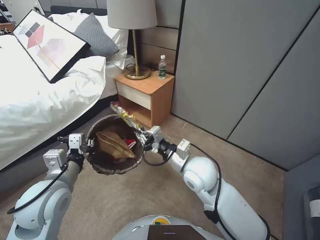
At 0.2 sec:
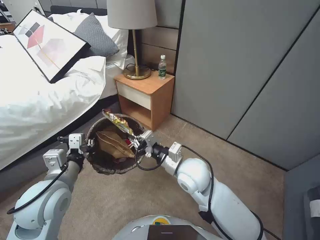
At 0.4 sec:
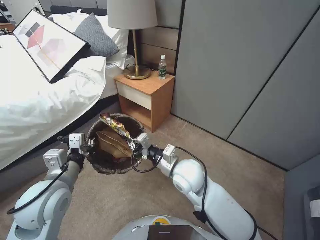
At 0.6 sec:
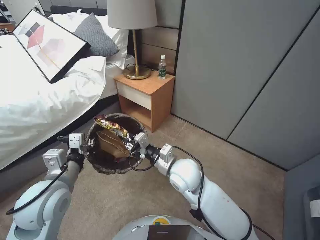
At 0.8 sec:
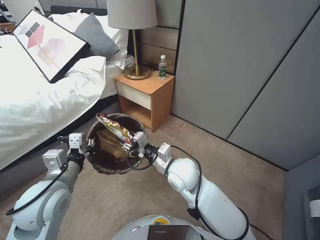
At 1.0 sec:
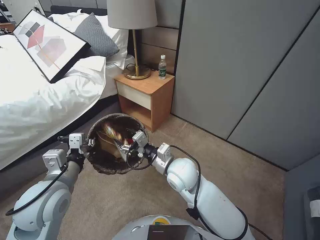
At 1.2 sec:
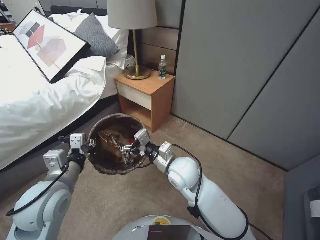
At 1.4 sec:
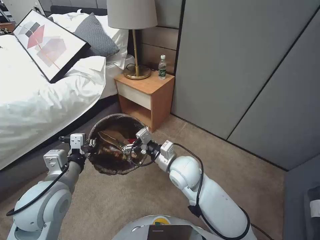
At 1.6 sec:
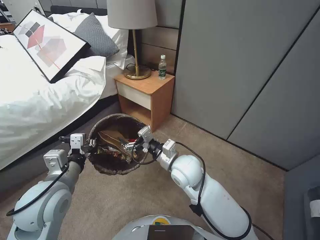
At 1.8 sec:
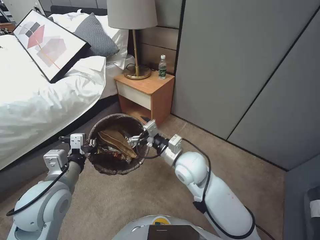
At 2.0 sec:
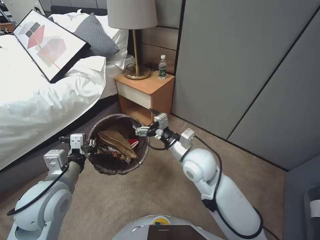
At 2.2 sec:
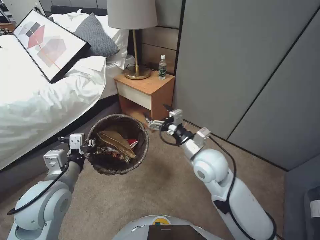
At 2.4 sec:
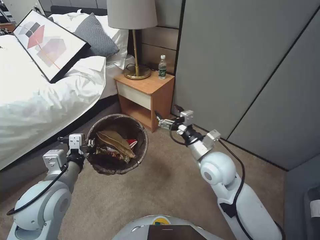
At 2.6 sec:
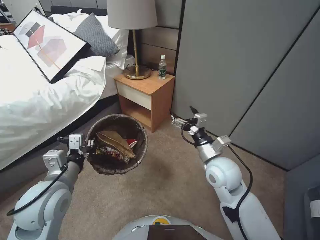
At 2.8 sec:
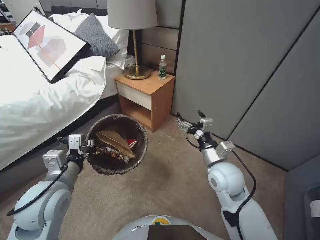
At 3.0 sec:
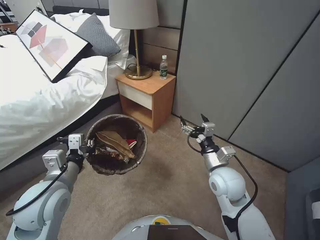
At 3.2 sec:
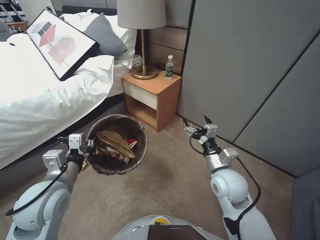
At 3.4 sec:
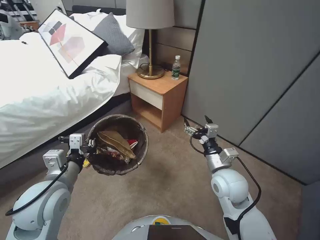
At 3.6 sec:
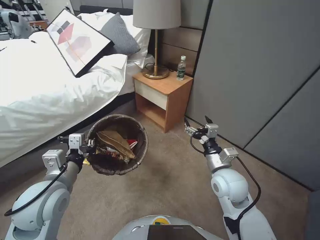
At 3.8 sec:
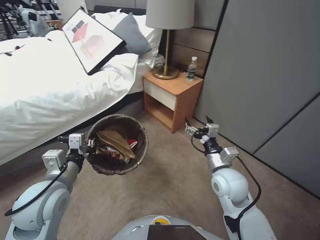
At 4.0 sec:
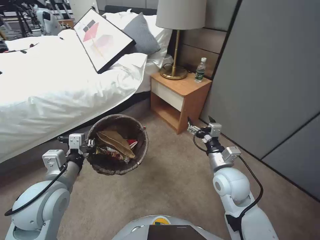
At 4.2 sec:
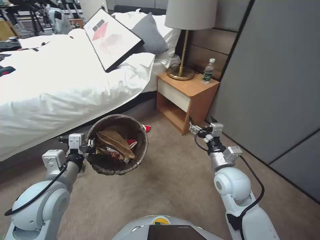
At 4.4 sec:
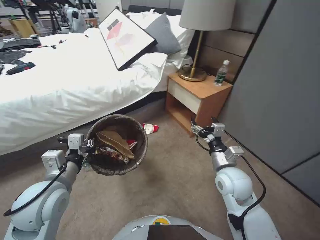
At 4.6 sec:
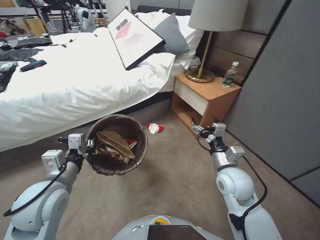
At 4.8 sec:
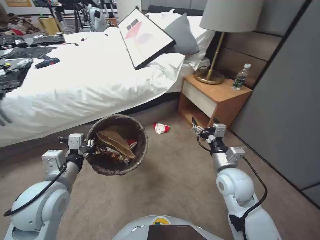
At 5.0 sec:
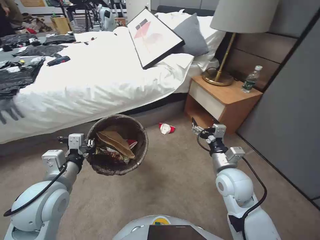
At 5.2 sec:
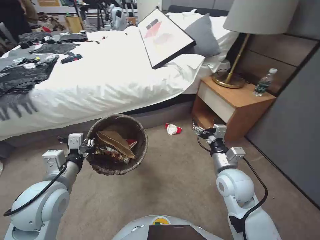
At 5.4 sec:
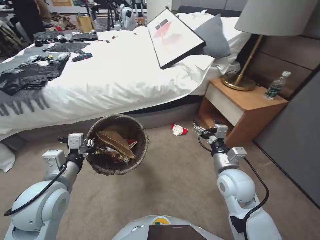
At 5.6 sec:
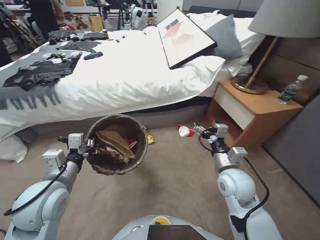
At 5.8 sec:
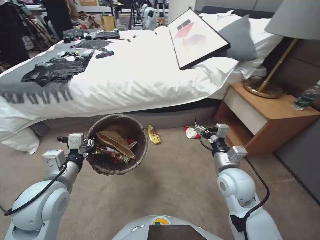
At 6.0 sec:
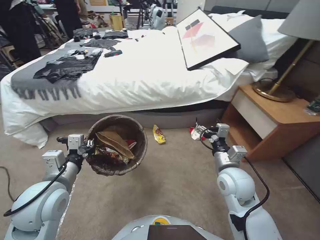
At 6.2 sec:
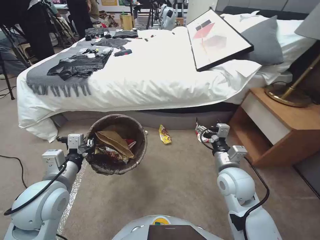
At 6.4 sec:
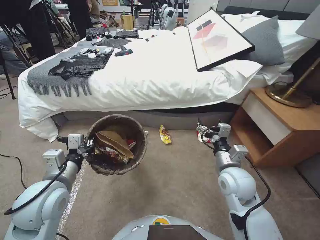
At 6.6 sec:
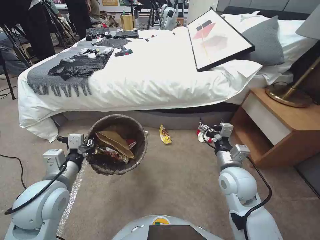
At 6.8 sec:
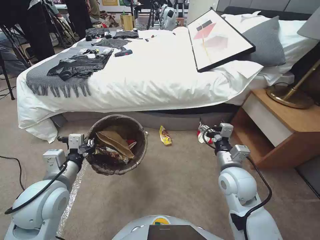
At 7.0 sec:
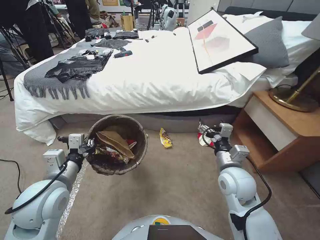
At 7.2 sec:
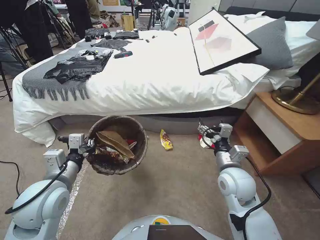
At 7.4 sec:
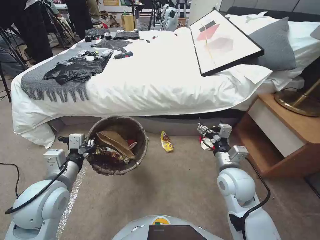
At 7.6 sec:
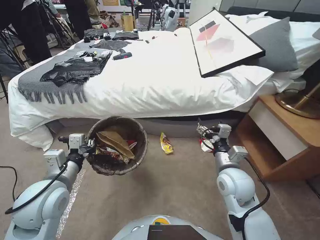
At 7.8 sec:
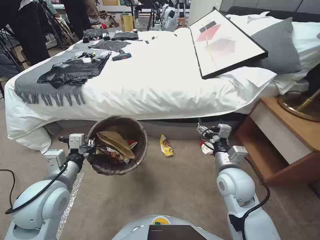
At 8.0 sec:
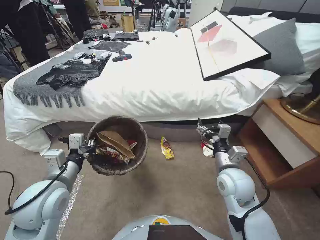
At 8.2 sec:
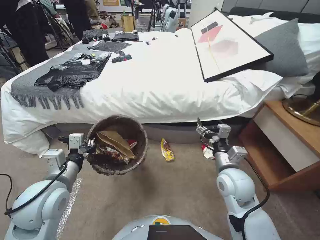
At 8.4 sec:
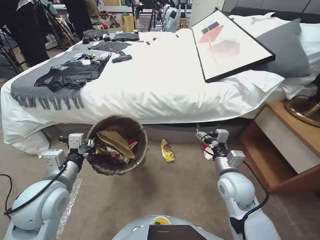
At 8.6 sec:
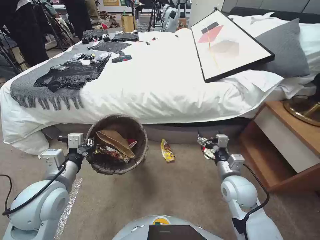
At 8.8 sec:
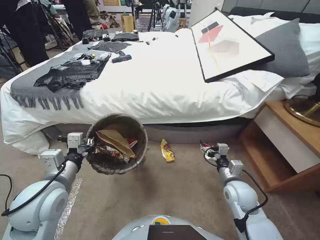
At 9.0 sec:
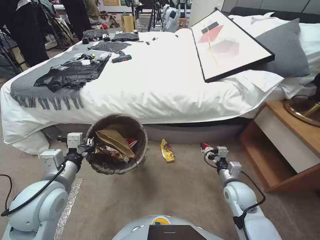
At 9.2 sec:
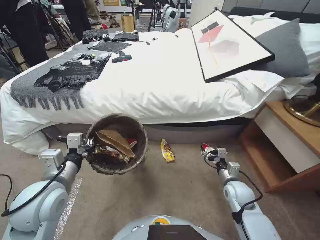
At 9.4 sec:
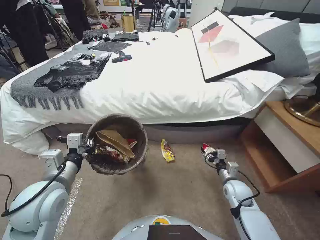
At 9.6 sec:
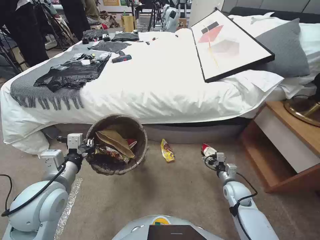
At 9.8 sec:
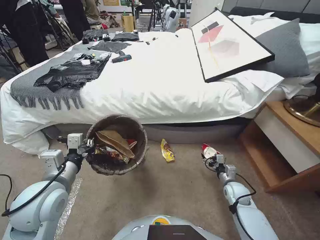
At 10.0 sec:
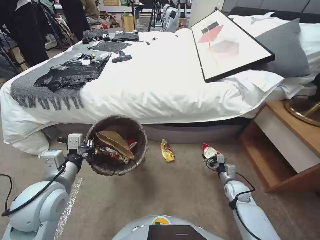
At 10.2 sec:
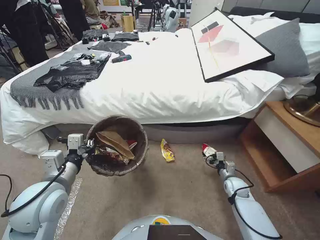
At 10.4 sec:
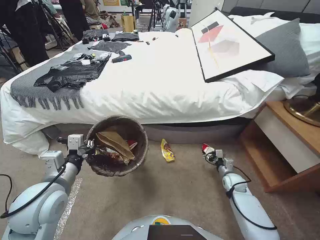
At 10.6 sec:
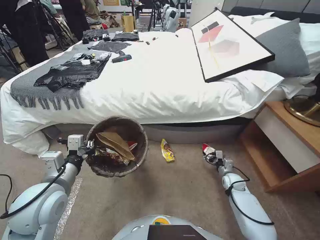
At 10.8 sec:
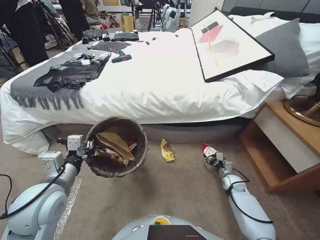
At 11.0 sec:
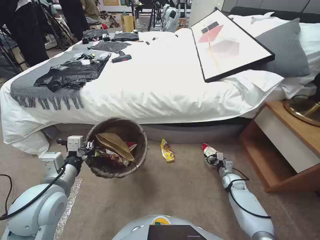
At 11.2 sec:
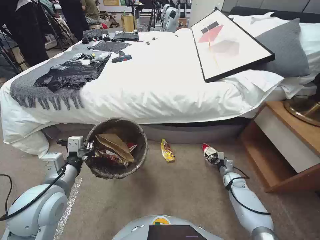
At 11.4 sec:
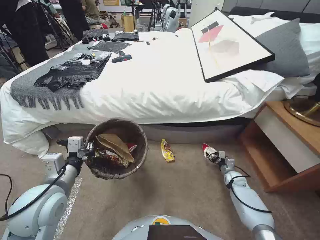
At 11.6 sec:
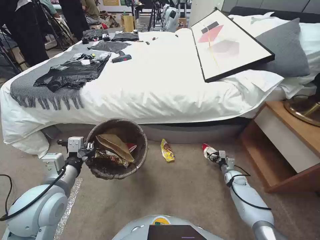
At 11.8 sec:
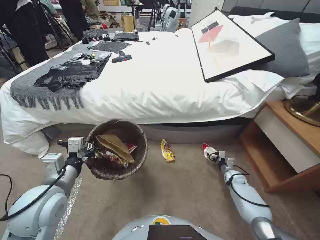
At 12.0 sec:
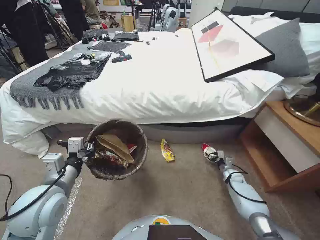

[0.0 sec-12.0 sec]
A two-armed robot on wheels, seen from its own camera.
Task of the whole recording: Pick up the trash bin, then pick up the garbage from the floor and place it into the trash bin.
0.0 sec to 1.6 sec: The right gripper opens.
1.6 sec to 3.0 sec: The right gripper heads to the right, covering some 15 cm.
7.6 sec to 9.0 sec: The right gripper moves downward and to the right, roughly 15 cm.
9.0 sec to 10.4 sec: The right gripper moves downward, to the right and forward, approximately 15 cm.
10.4 sec to 12.0 sec: The right gripper heads downward, covering about 5 cm.

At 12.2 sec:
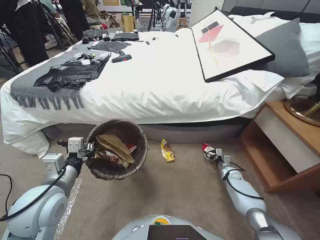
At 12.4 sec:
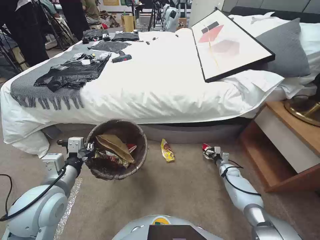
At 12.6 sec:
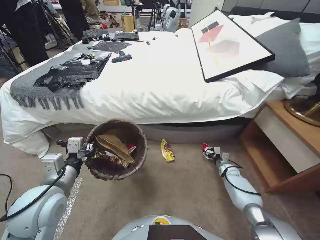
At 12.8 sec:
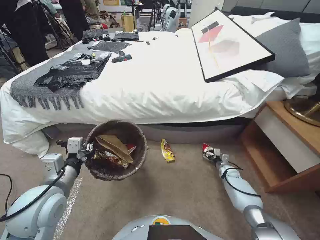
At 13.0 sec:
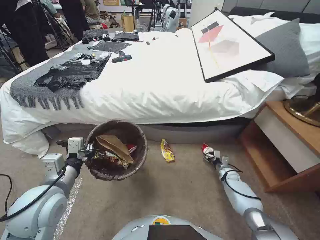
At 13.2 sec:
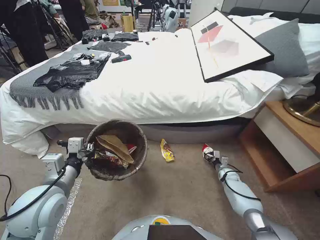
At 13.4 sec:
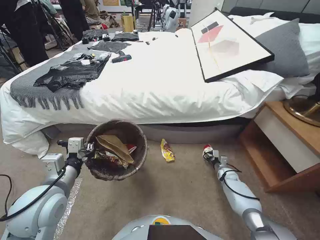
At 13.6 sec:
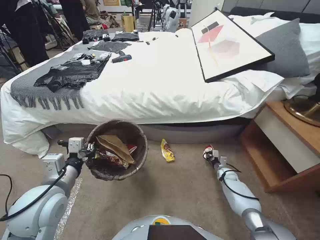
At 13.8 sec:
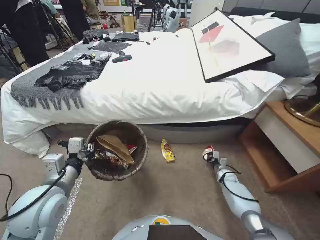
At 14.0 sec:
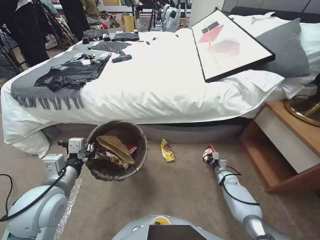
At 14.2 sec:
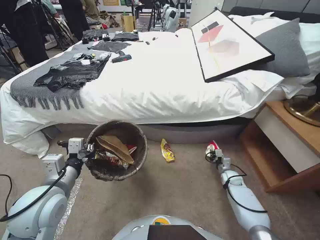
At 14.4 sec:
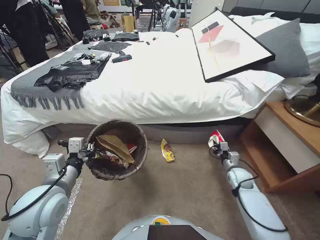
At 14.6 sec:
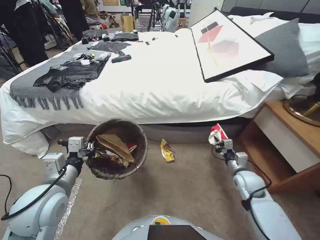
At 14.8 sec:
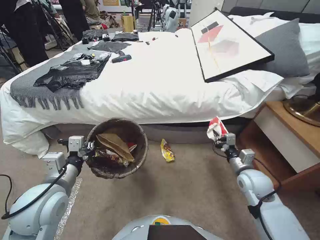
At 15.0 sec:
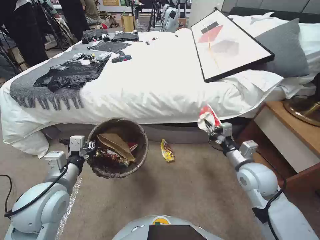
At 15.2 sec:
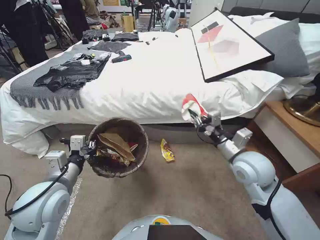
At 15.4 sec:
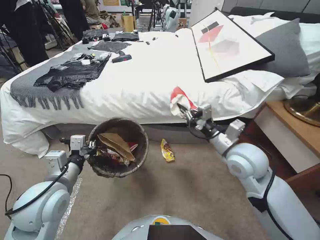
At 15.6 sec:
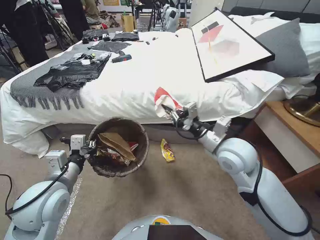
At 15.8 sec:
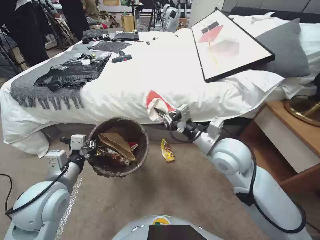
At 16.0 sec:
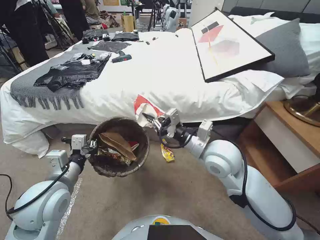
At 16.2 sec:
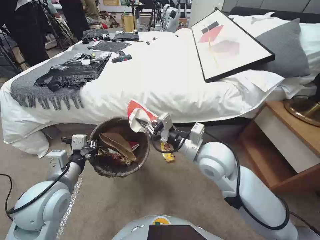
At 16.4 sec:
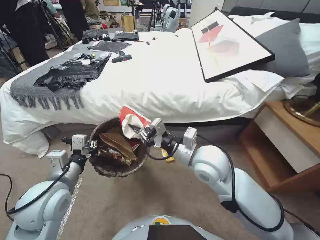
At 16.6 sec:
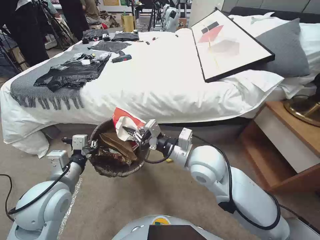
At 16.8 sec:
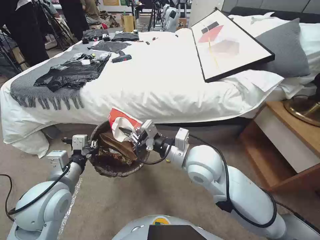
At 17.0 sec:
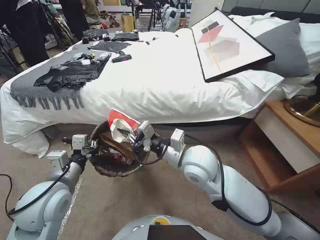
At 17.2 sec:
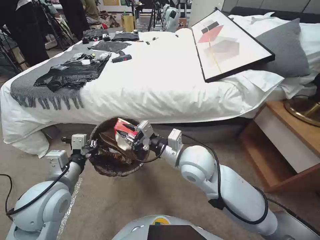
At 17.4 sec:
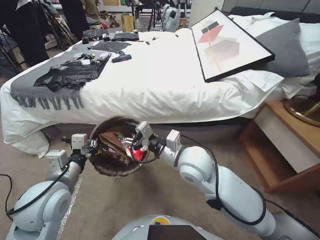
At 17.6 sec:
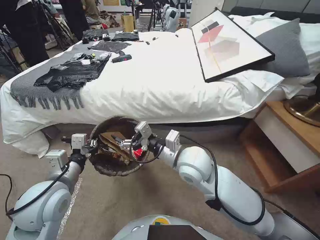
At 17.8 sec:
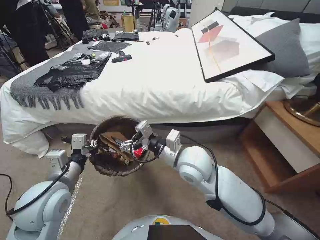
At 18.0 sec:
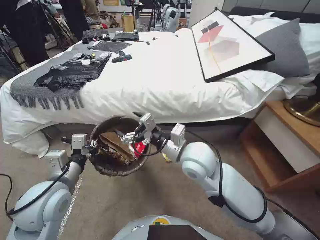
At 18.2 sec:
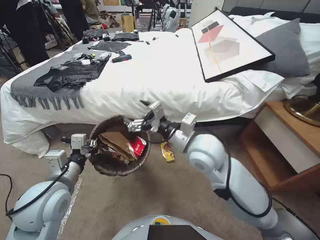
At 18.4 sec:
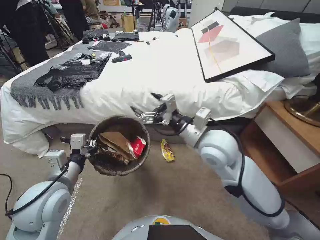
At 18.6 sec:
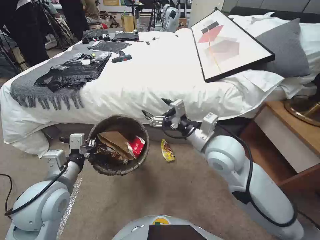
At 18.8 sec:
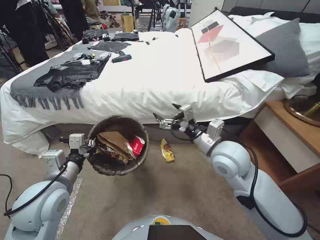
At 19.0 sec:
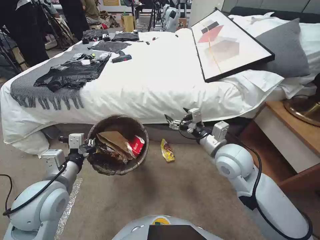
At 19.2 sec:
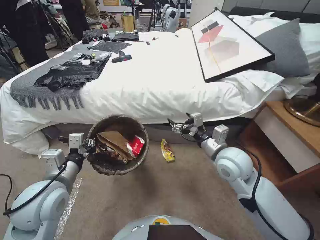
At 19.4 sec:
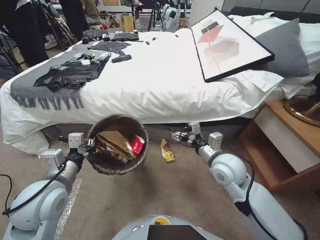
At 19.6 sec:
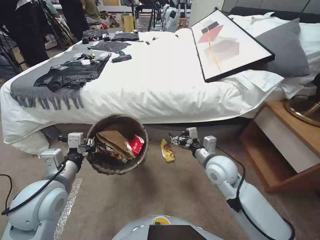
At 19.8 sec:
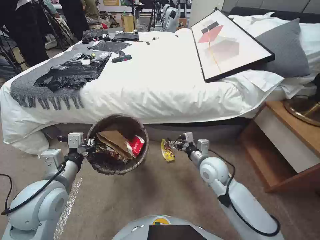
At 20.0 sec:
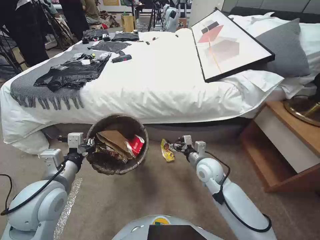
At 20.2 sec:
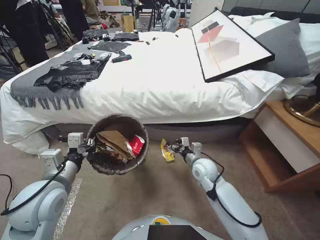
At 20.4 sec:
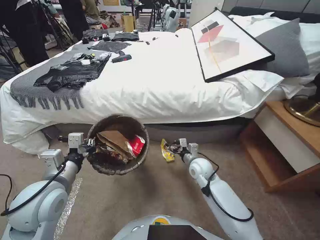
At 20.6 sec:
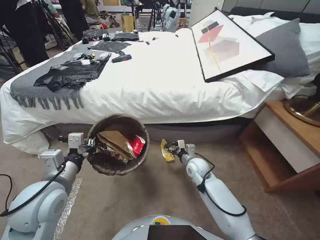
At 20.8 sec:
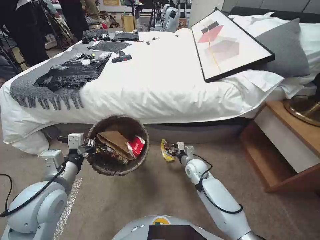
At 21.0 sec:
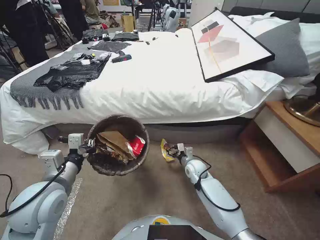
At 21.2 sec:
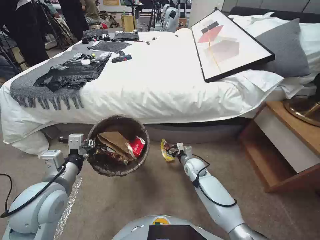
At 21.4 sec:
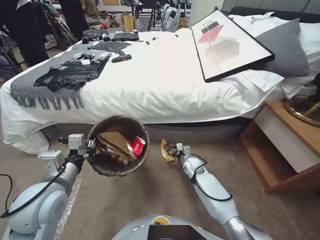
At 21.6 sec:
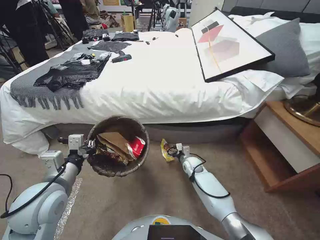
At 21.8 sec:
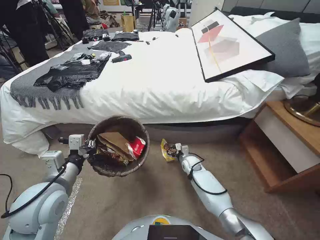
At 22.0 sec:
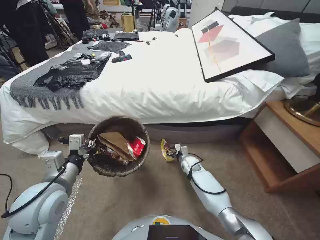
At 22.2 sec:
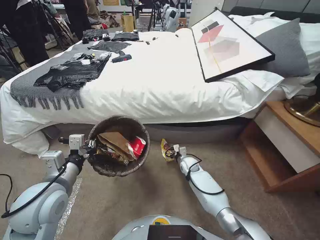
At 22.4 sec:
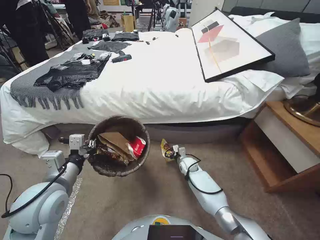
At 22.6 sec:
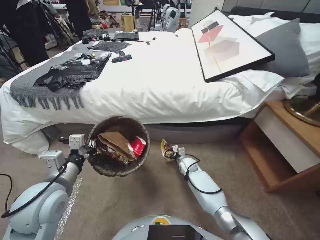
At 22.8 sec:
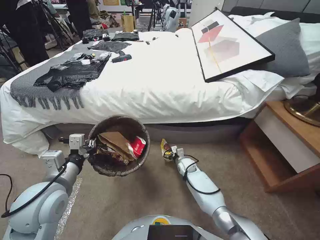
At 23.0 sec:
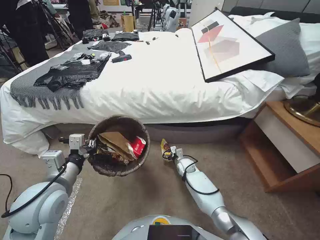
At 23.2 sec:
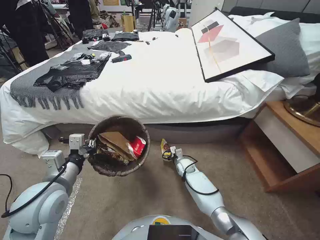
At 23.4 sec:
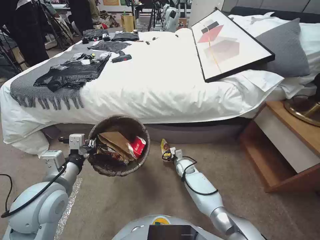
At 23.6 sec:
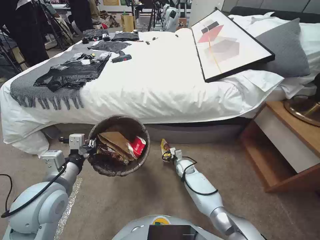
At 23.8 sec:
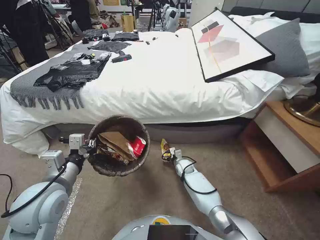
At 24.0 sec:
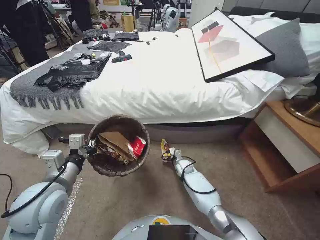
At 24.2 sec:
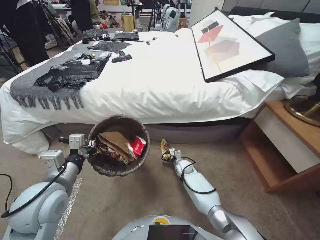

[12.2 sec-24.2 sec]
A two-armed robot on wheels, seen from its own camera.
Task of the whole recording: Pick up the trash bin, then pick up the garbage from the floor and place it into the trash bin.
12.2 sec to 13.8 sec: The right gripper closes.
13.8 sec to 15.2 sec: The right gripper goes about 35 cm upward.
15.2 sec to 16.6 sec: The right gripper travels to the left by approximately 15 cm.
16.6 sec to 18.2 sec: The right gripper opens its fingers.
18.2 sec to 19.8 sec: The right gripper shifts some 15 cm downward and to the right.
19.8 sec to 21.2 sec: The right gripper moves downward and forward, roughly 20 cm.
21.2 sec to 22.6 sec: The right gripper shifts about 5 cm downward.
22.6 sec to 24.2 sec: The grippers move only a little.
